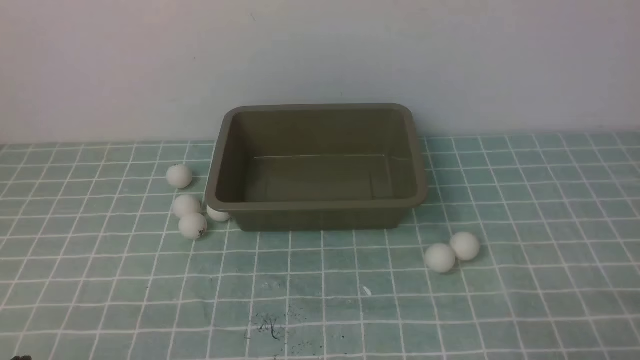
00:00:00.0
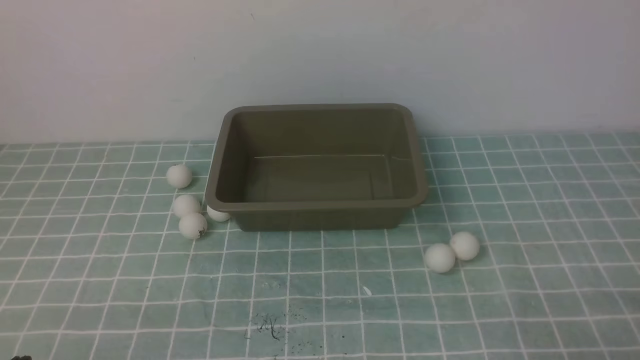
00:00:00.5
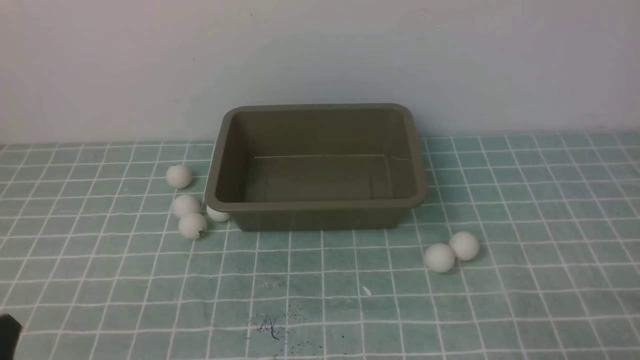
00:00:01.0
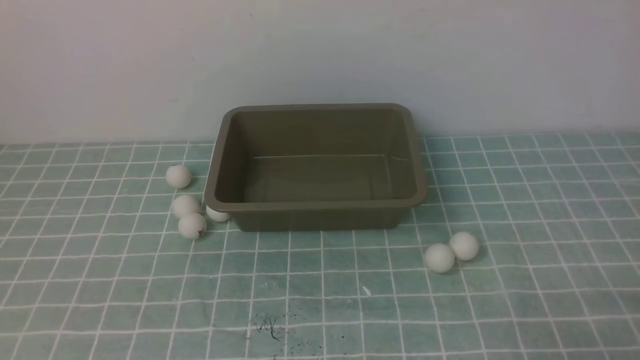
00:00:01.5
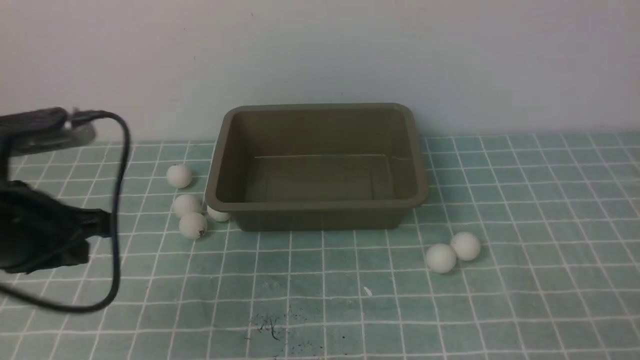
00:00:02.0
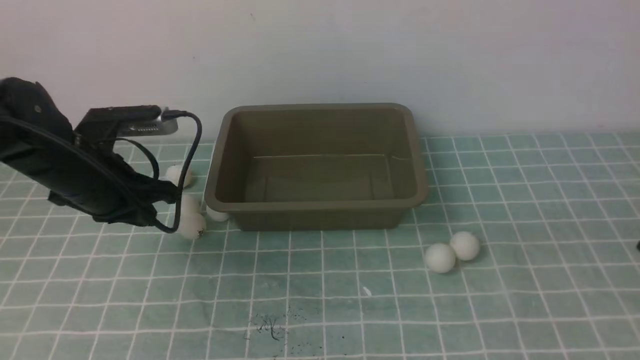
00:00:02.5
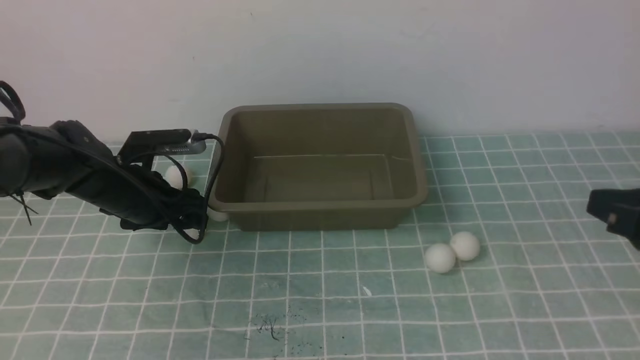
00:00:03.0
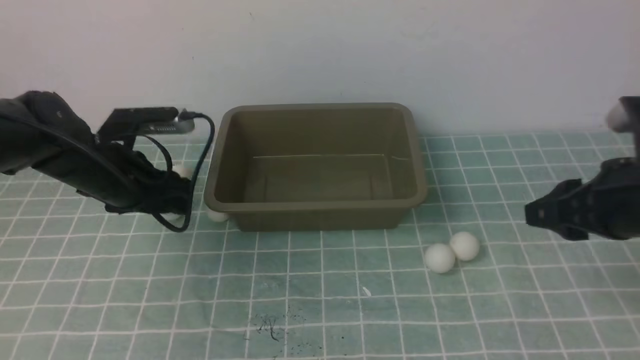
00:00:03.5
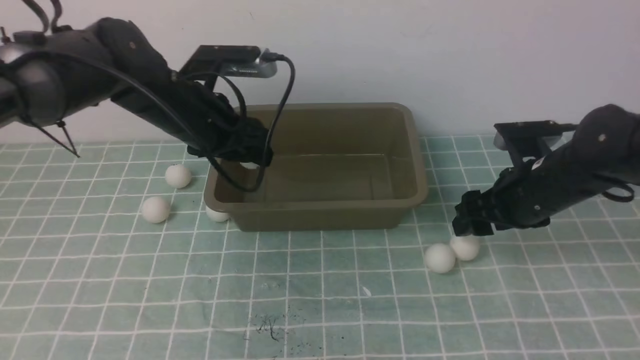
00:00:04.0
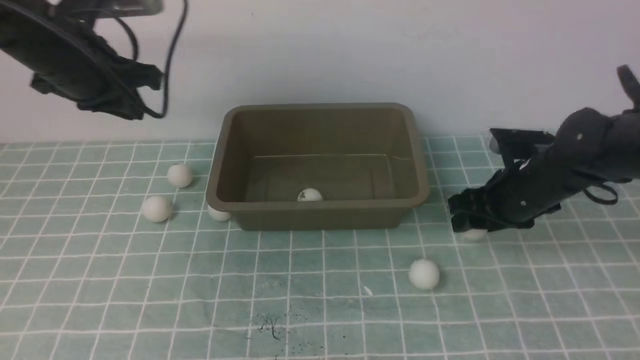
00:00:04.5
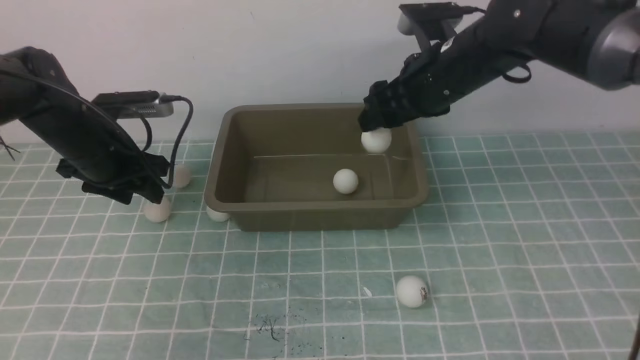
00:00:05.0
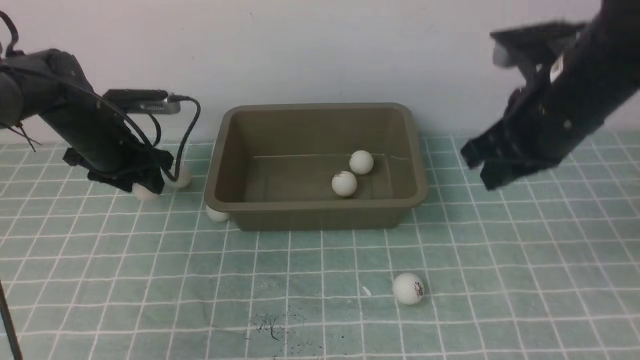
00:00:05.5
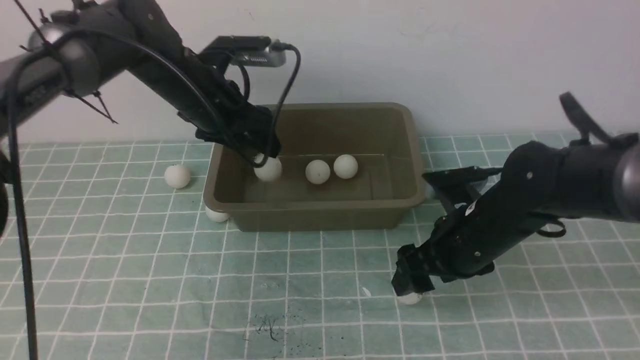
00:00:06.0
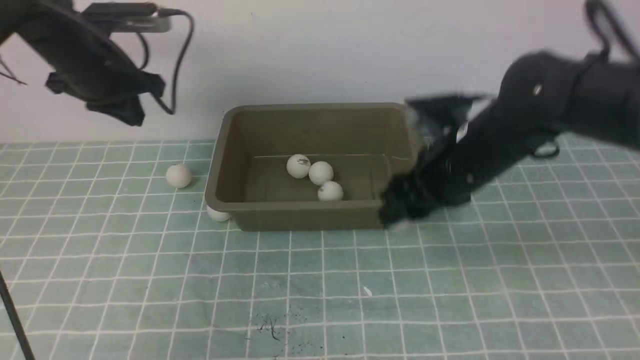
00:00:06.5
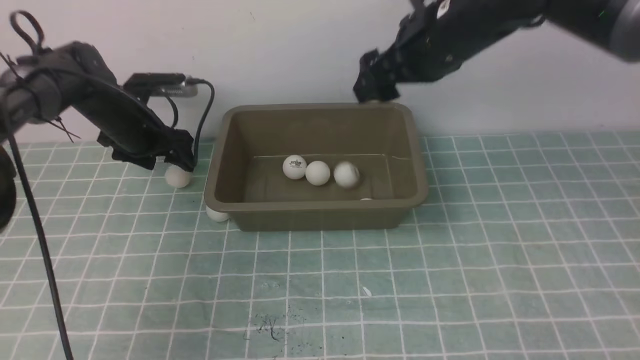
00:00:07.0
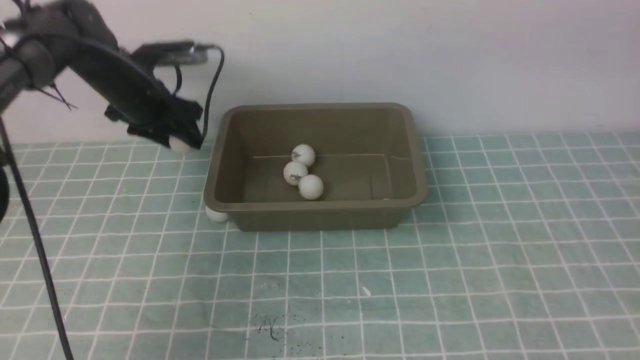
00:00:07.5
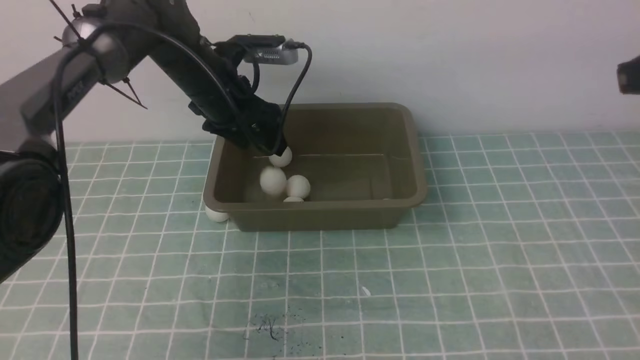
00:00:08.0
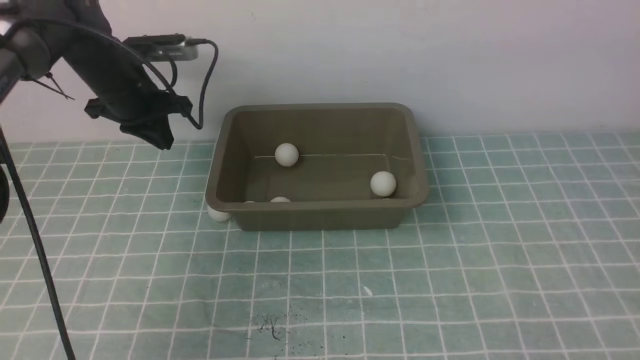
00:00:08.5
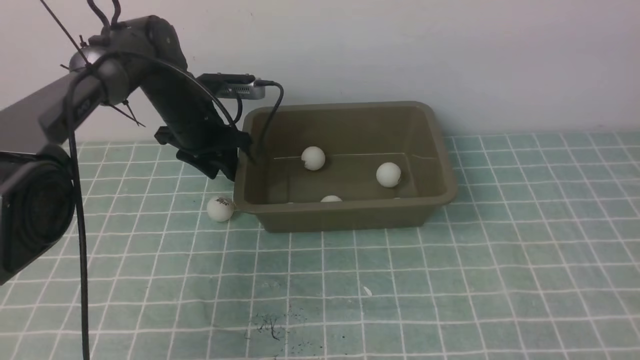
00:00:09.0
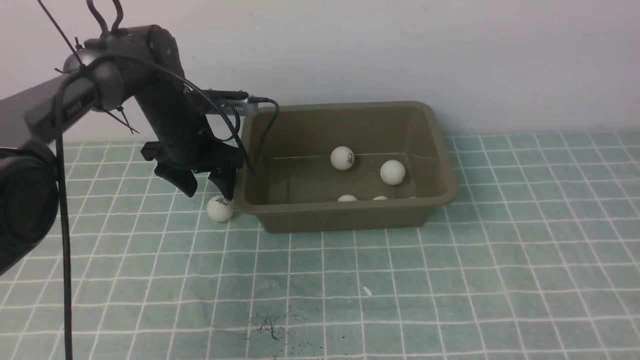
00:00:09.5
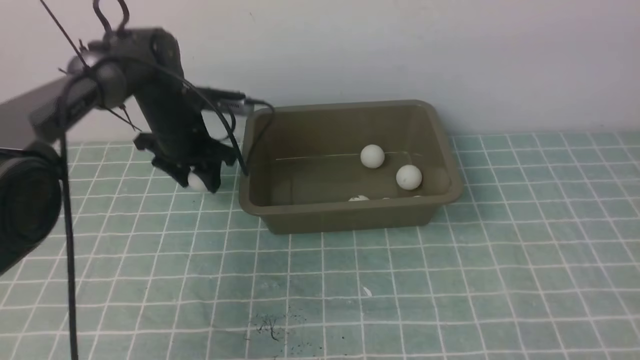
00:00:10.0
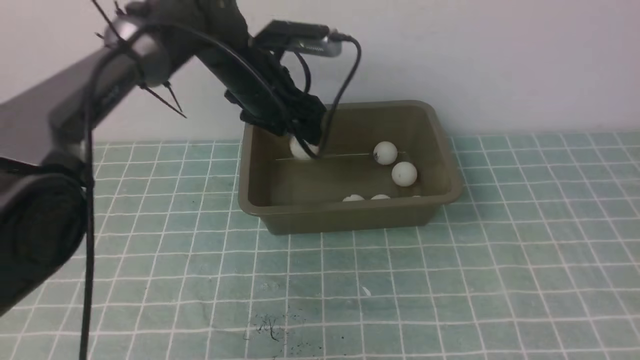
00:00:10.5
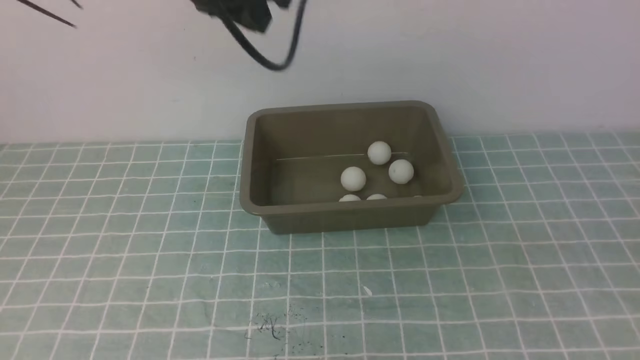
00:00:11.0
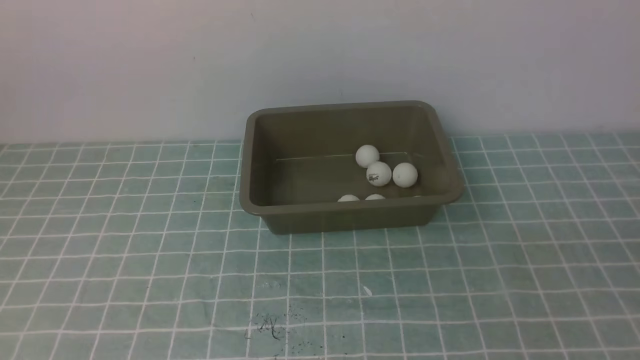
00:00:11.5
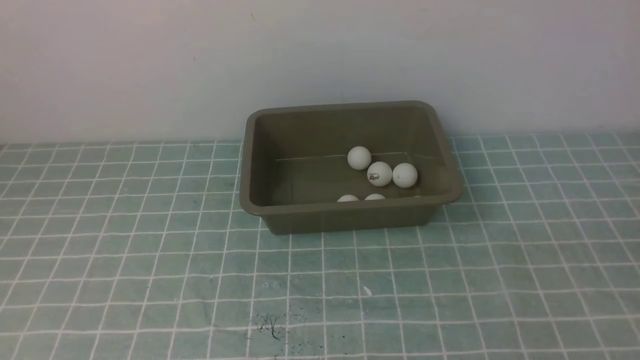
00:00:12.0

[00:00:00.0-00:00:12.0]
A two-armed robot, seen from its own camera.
Step, 00:00:00.0 to 00:00:03.5: use the left arm to clamp the table tennis ball closest to it.
Step, 00:00:07.5 to 00:00:08.0: use the left arm to put the table tennis ball into the box.
Step, 00:00:08.5 to 00:00:09.5: use the left arm to clamp the table tennis ball closest to it.
Step, 00:00:10.0 to 00:00:10.5: use the left arm to put the table tennis ball into the box.
00:00:00.0 to 00:00:02.0: The left gripper travels forward and upward by about 20 cm.
00:00:02.0 to 00:00:04.0: The right gripper heads forward, covering roughly 30 cm, and opens, while the left gripper goes about 20 cm forward and to the right, and opens up.
00:00:04.0 to 00:00:06.0: The right gripper is displaced to the left by some 5 cm, travels upward and back again, some 10 cm each way, and closes, then opens again. Meanwhile the left gripper travels to the left and back again, about 10 cm each way, and closes and opens again.
00:00:06.0 to 00:00:08.0: The right gripper goes some 25 cm upward and to the right, and closes. Meanwhile the left gripper goes to the left and returns, some 10 cm each way, and closes, then reopens.
00:00:08.0 to 00:00:10.0: The left gripper closes, then opens again.
00:00:10.0 to 00:00:12.0: The right gripper goes roughly 20 cm backward and downward; the left gripper shifts about 50 cm backward and upward, and closes its fingers.

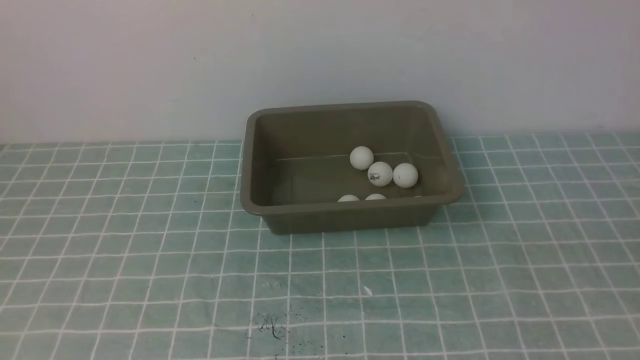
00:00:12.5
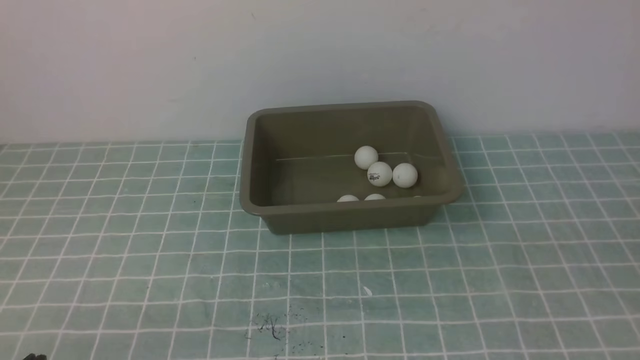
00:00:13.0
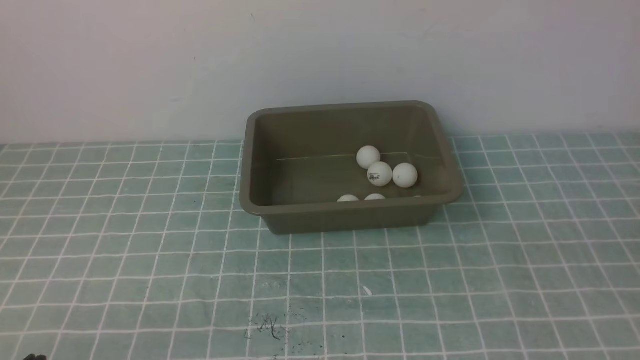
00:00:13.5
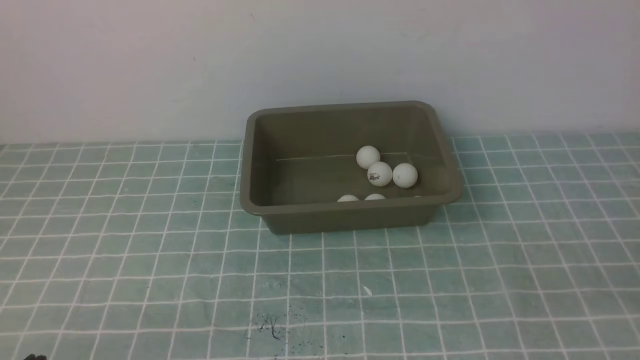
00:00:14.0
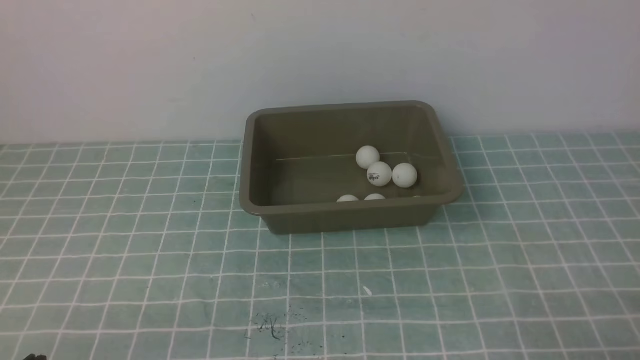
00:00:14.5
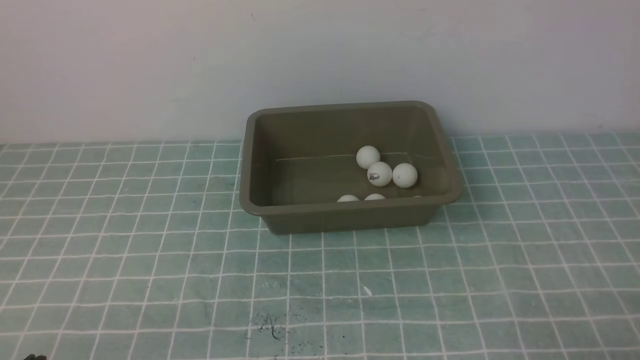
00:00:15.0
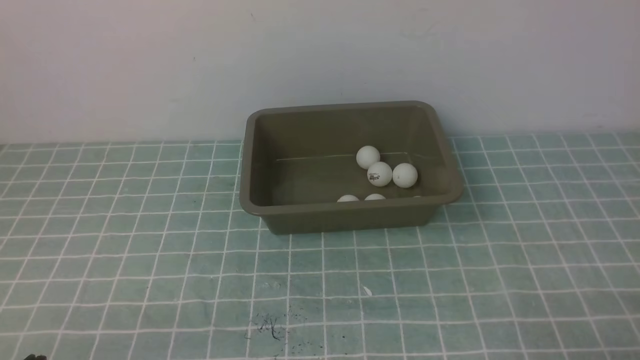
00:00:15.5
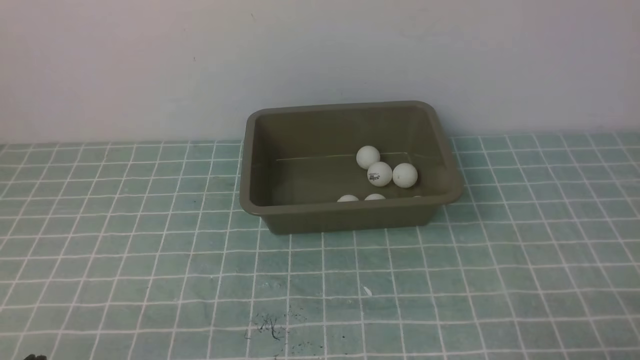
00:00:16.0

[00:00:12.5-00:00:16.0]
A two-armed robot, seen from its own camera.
00:00:14.5 to 00:00:16.0: Neither gripper changes place.
